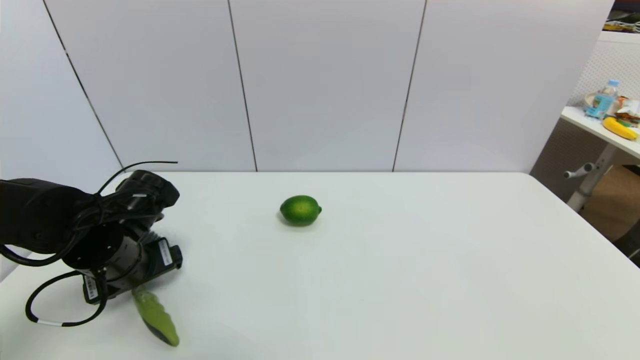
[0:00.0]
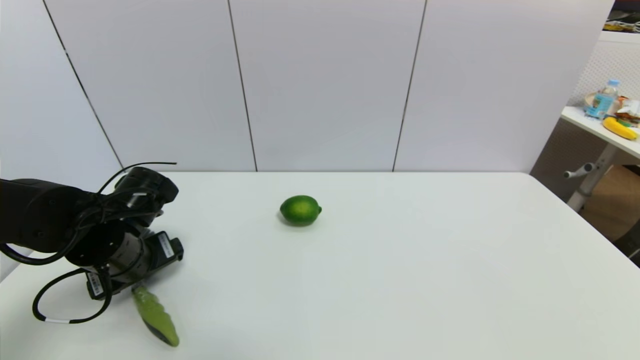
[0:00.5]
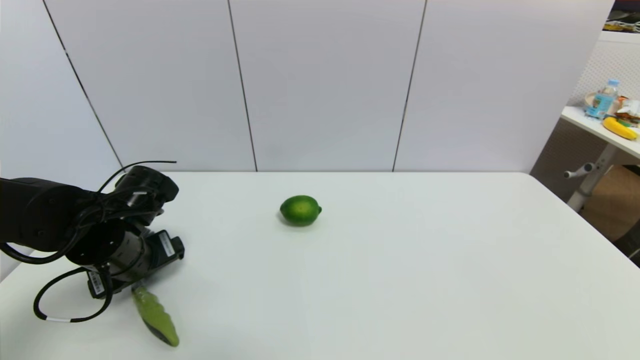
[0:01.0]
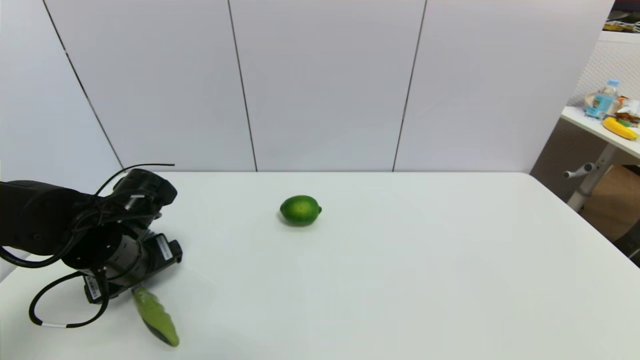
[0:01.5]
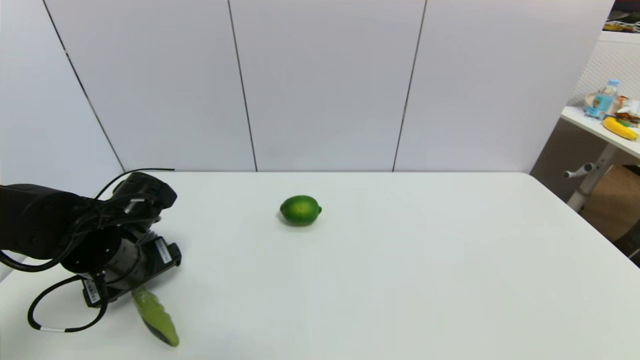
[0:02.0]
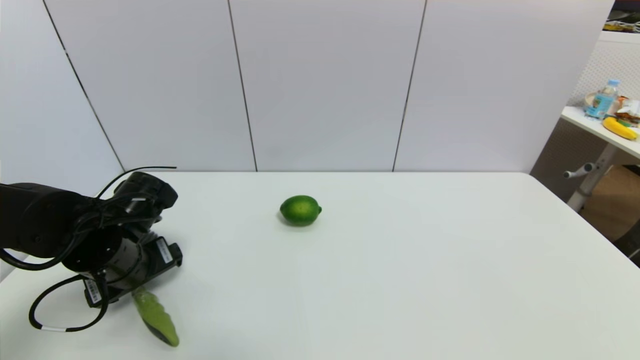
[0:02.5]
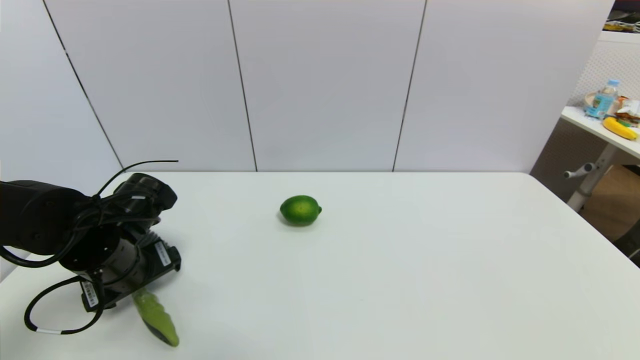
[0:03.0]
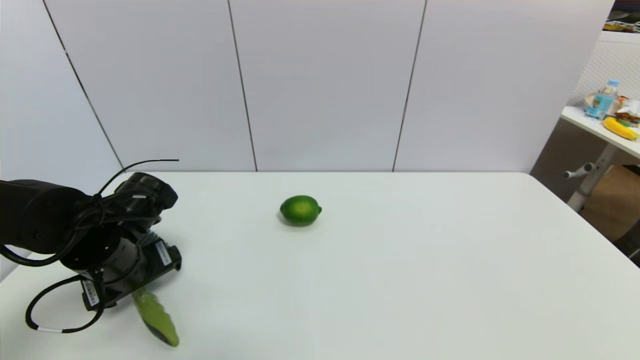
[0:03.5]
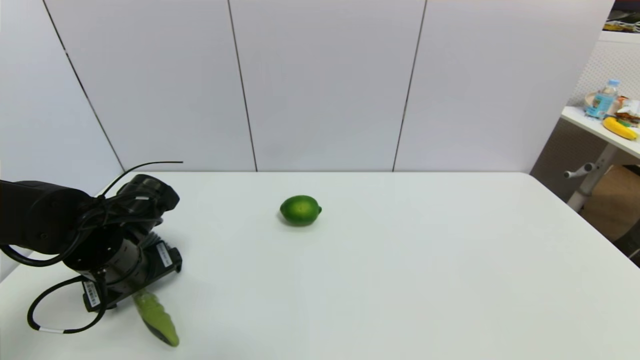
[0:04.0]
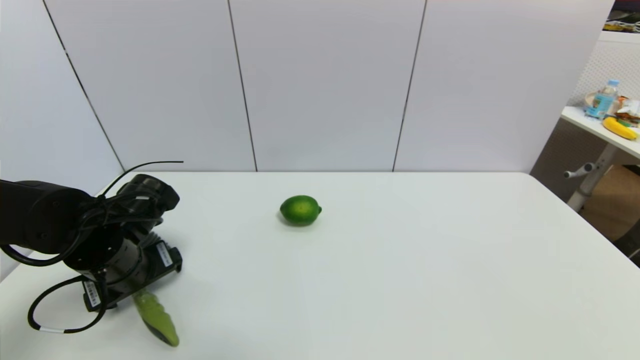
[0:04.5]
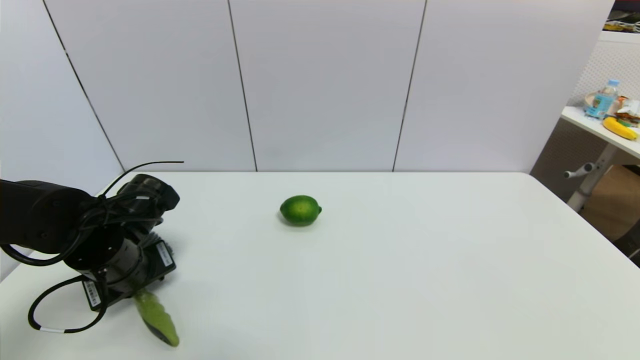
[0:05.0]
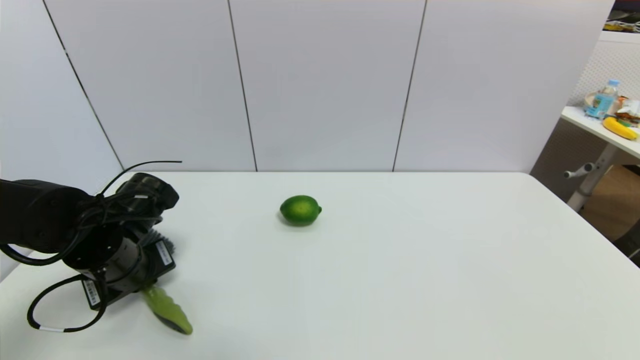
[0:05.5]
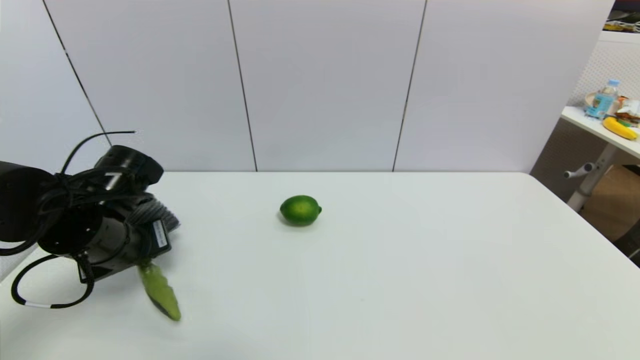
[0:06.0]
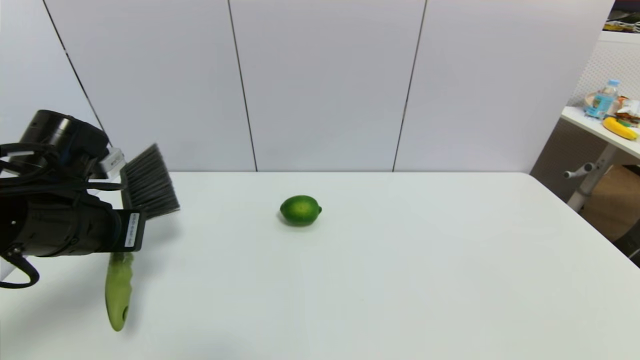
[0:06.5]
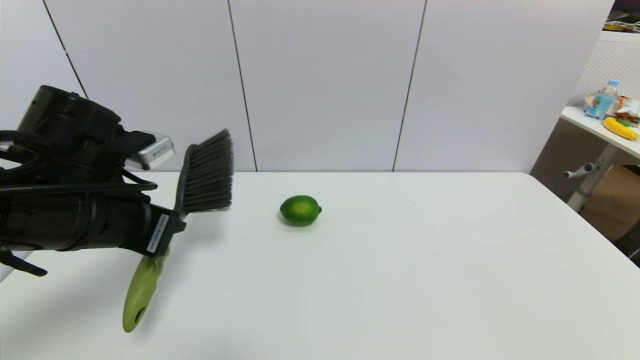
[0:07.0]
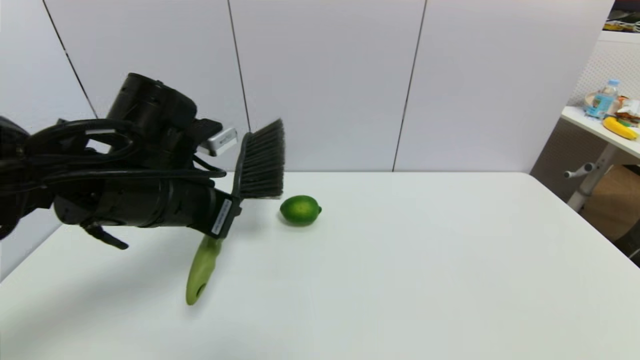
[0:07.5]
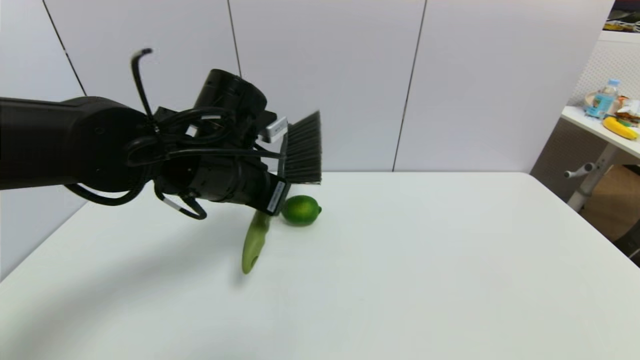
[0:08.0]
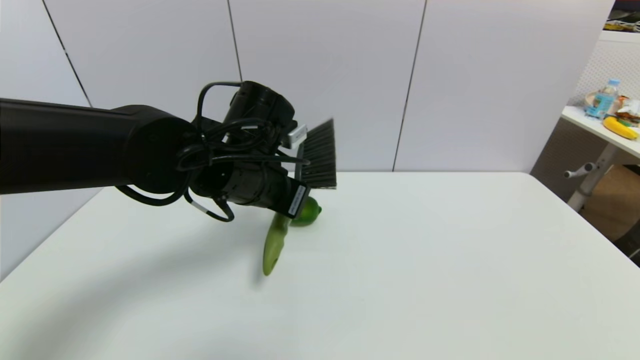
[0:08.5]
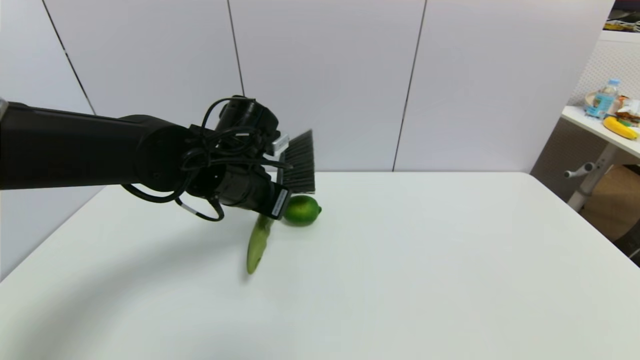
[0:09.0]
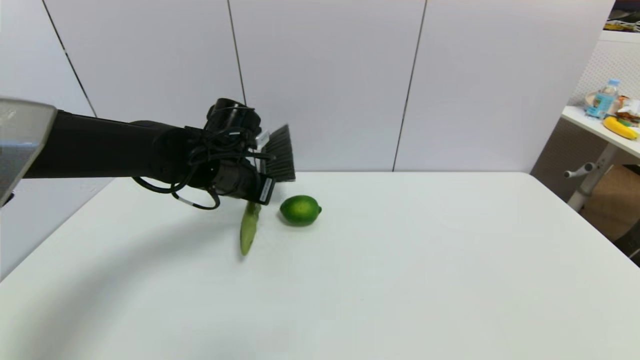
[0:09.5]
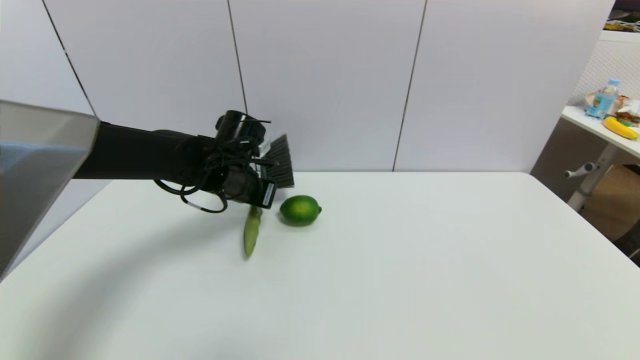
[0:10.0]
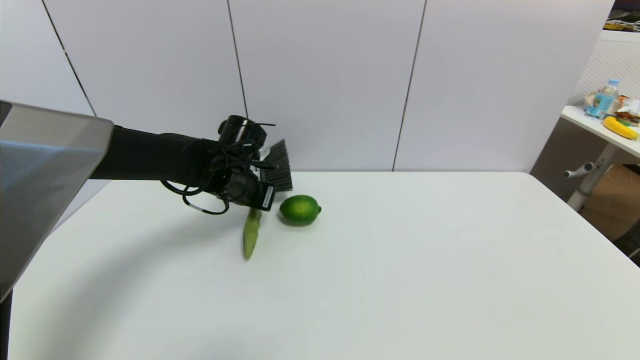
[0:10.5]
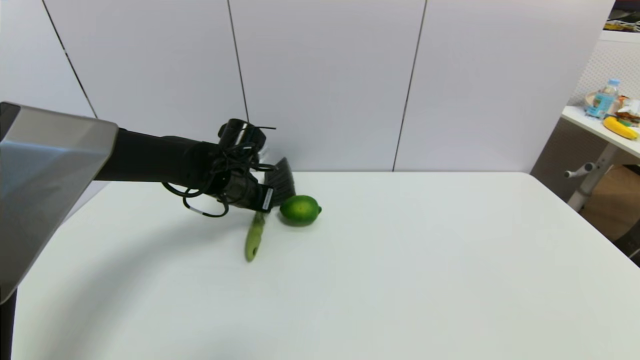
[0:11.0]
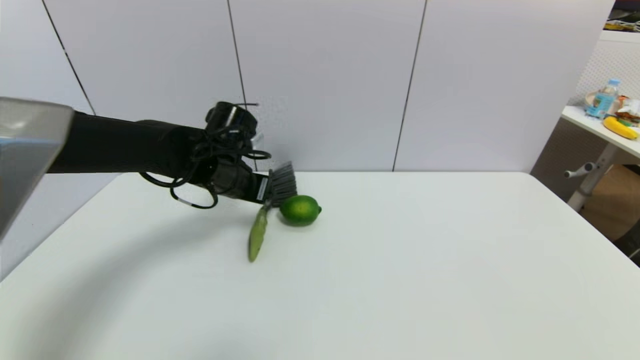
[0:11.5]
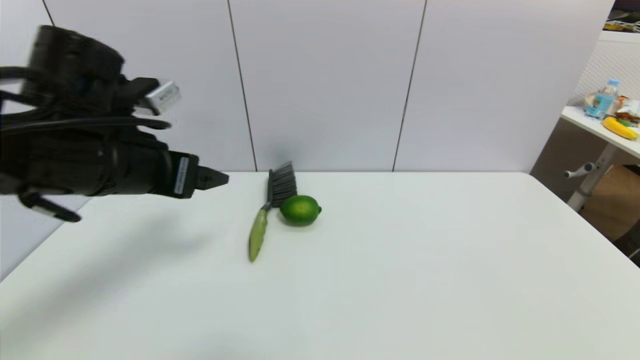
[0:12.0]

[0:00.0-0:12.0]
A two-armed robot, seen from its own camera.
Task of the whole recording: put the brush in the designated position.
Step, 0:00.0 to 0:05.0: Grasp the brush with left gripper.
Step, 0:05.5 to 0:10.5: Place the brush on the table with left gripper.
0:00.0 to 0:02.0: The grippers move only a little.
0:02.0 to 0:04.0: The two grippers keep their place.
0:04.0 to 0:06.0: The left gripper closes up.
0:06.0 to 0:08.0: The left gripper travels to the right and upward by some 15 cm.
0:08.0 to 0:10.0: The left gripper moves forward and downward, about 10 cm.
0:10.0 to 0:12.0: The left gripper goes some 20 cm backward, upward and to the left, and opens its fingers.

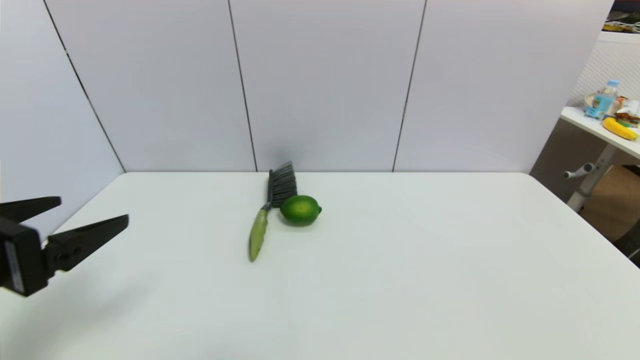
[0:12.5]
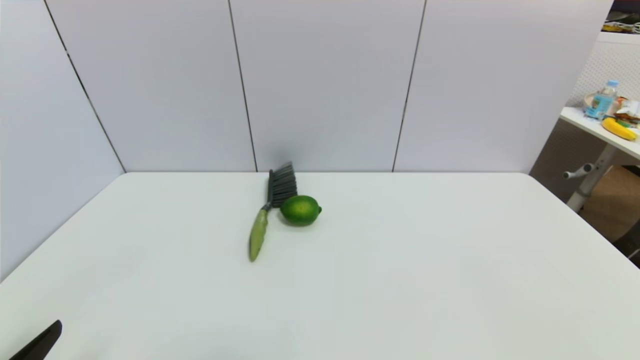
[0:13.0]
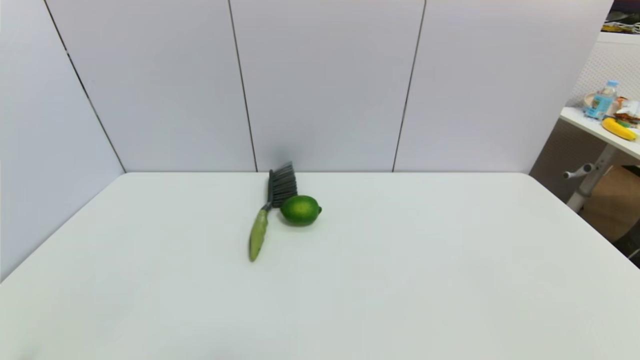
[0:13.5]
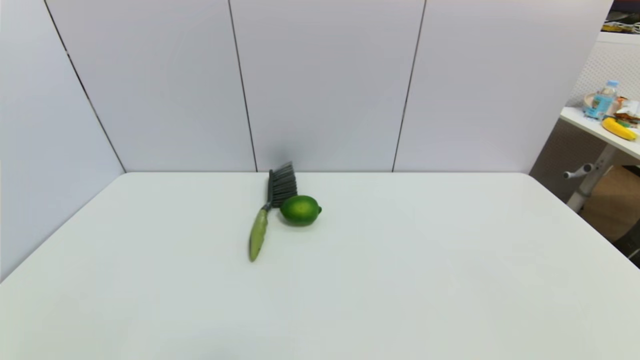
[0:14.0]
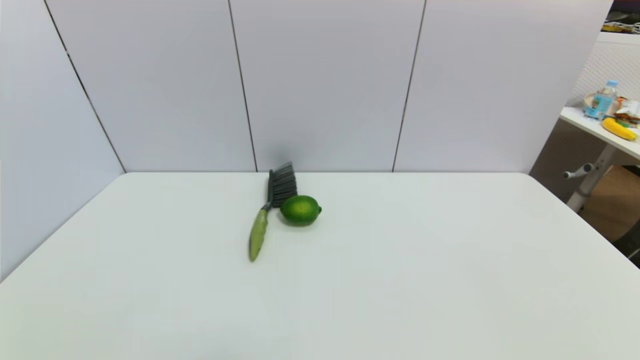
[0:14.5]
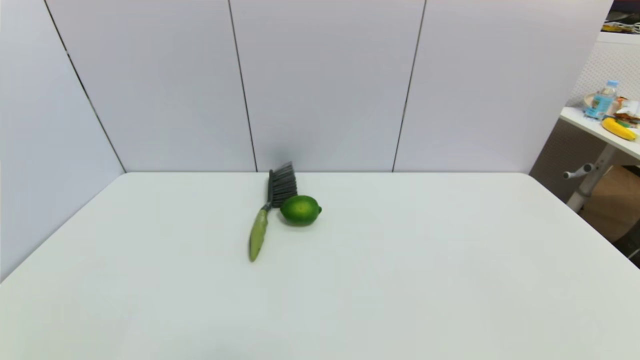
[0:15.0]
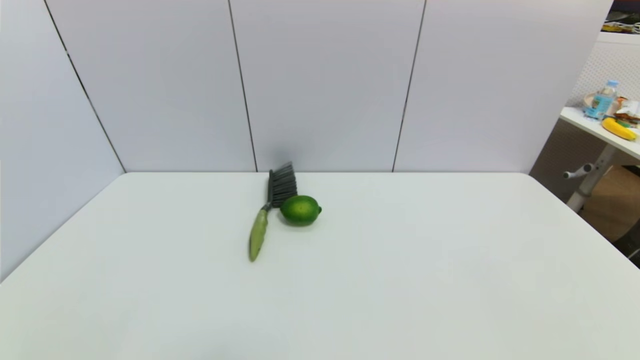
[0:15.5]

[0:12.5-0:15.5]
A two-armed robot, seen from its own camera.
Task of the whole recording: put the brush in the designated position.
0:12.5 to 0:14.0: The left gripper heads downward and backward, covering approximately 20 cm.
0:14.0 to 0:15.5: Both grippers stay about where they are.
